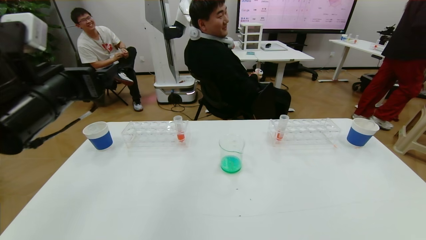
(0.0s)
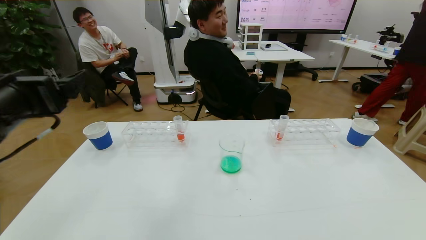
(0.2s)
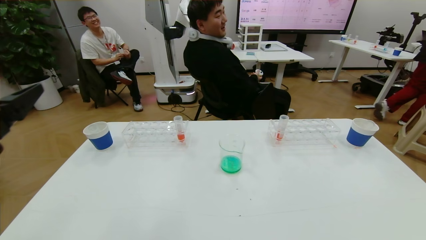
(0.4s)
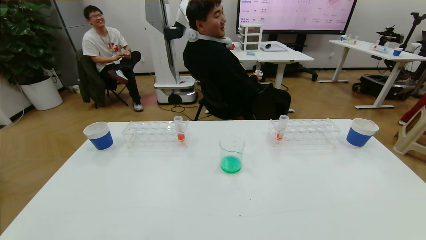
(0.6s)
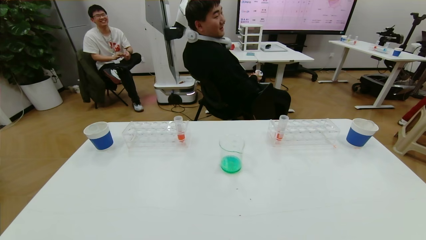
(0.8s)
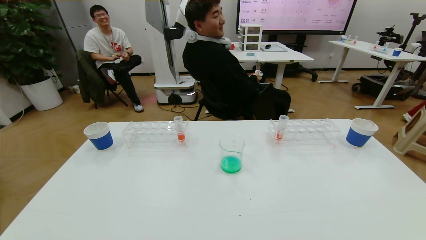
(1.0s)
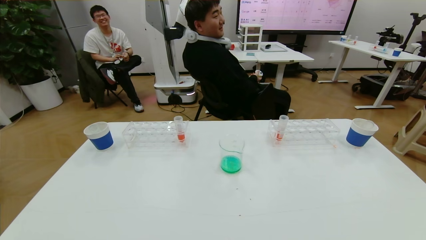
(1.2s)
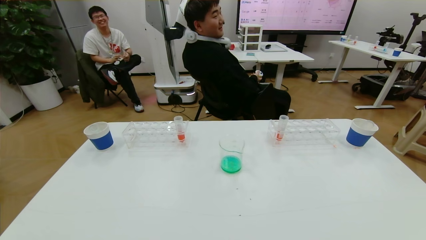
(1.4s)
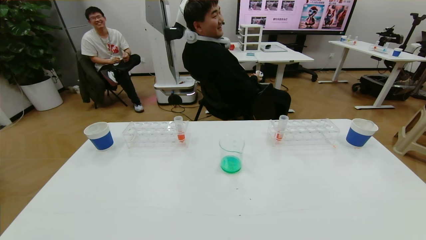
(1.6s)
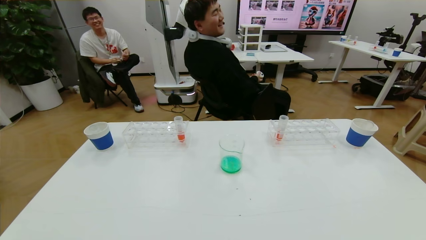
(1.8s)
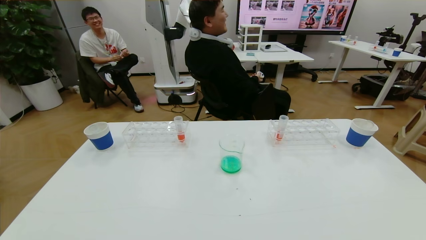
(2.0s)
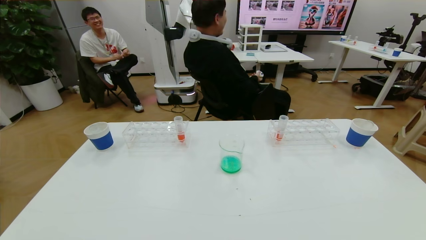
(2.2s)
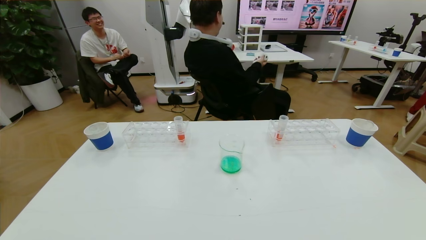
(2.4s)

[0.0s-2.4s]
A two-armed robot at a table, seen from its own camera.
Task of the whole recording: pick up the test tube with yellow pigment and the test tube with blue pigment by grippers and pour them into the beaker.
Step, 0.0s to 2.4s: Pour the blue reagent into the graduated cylinder and place the test tube into the paper cup.
0.0s to 1.2s: The left gripper travels backward by roughly 30 cm.
1.2s to 2.4s: The left gripper is displaced downward by roughly 15 cm.
